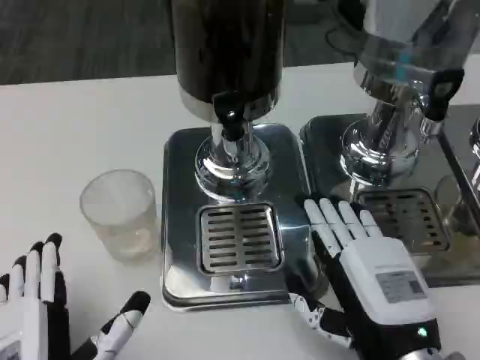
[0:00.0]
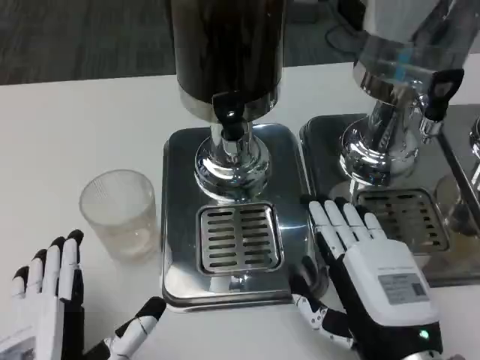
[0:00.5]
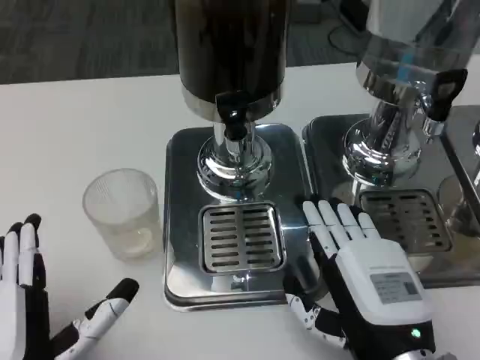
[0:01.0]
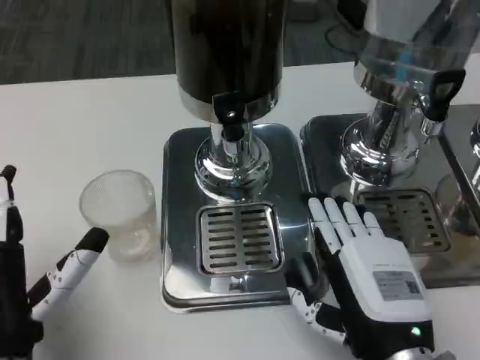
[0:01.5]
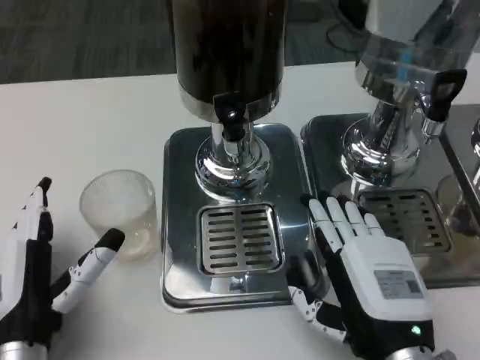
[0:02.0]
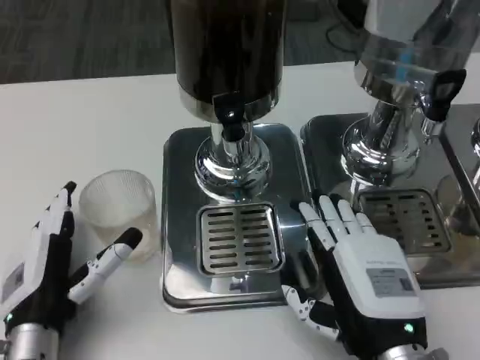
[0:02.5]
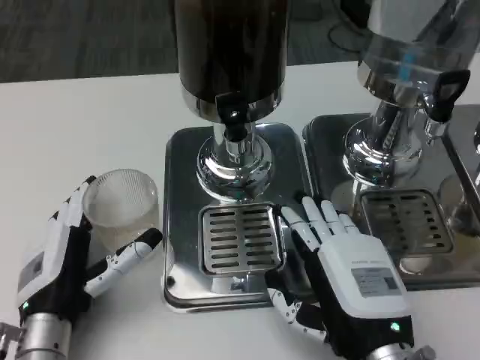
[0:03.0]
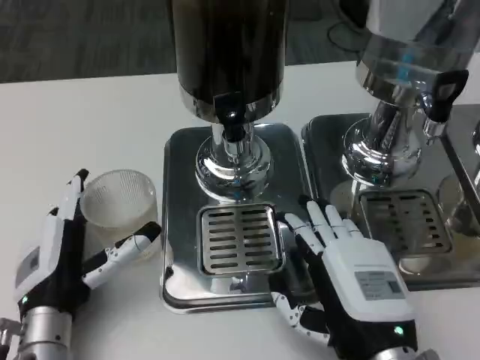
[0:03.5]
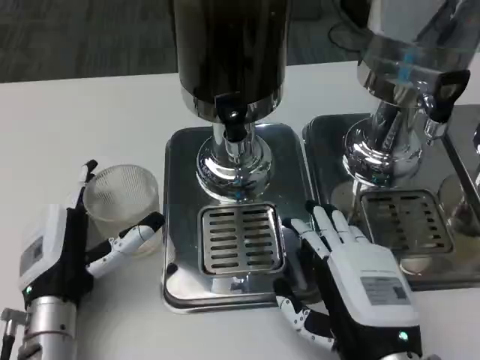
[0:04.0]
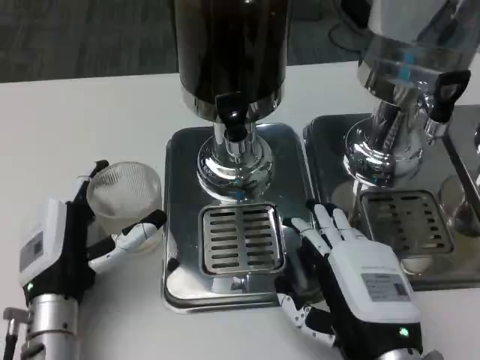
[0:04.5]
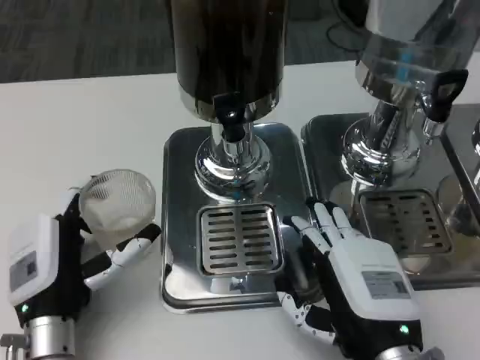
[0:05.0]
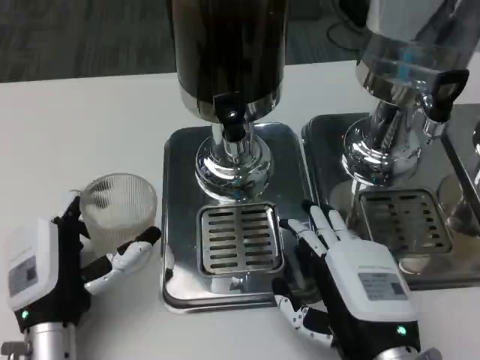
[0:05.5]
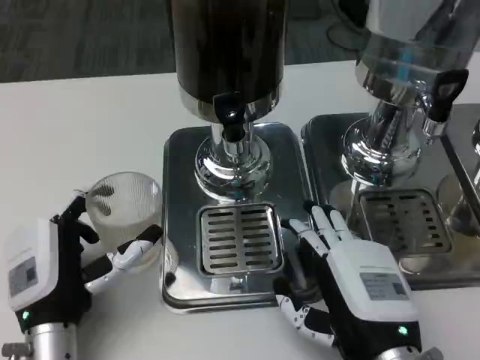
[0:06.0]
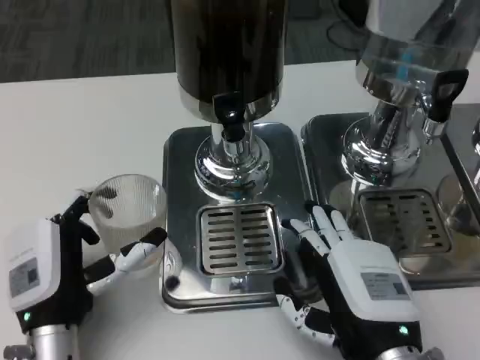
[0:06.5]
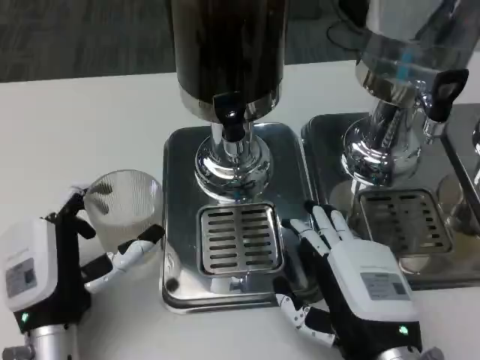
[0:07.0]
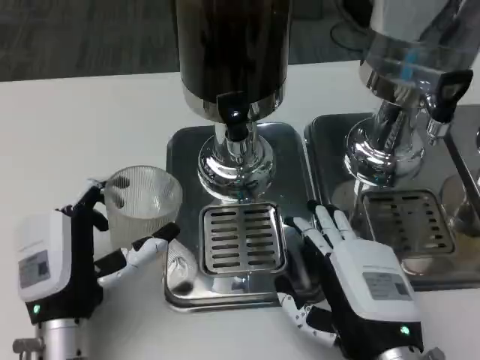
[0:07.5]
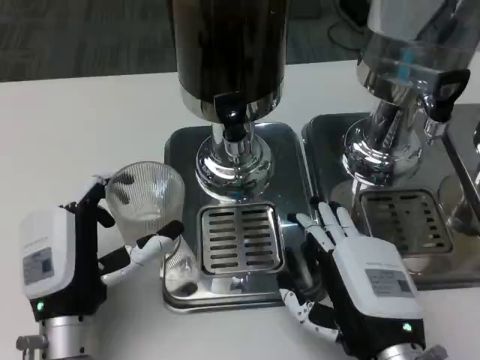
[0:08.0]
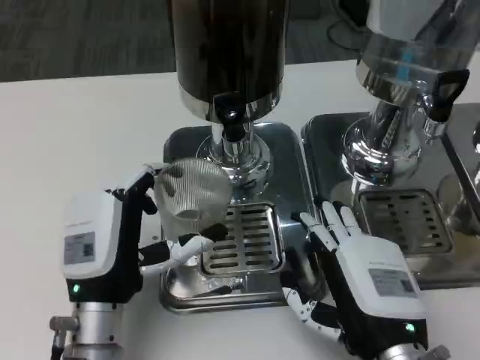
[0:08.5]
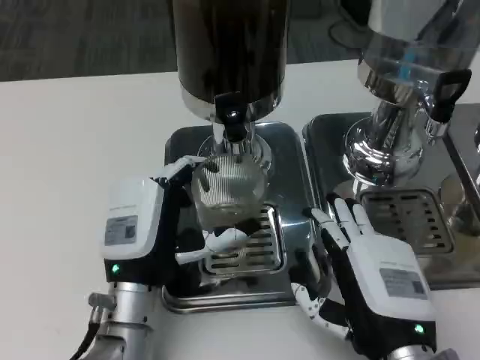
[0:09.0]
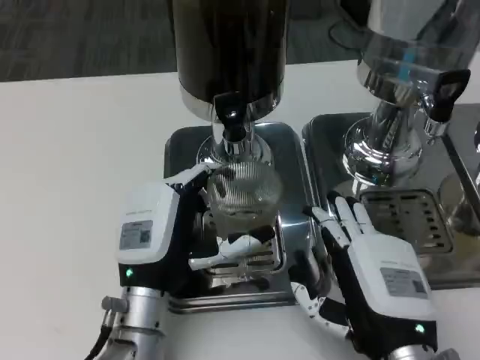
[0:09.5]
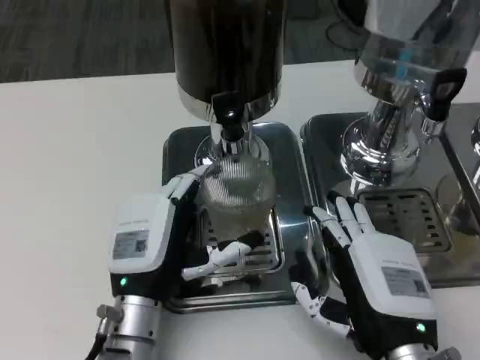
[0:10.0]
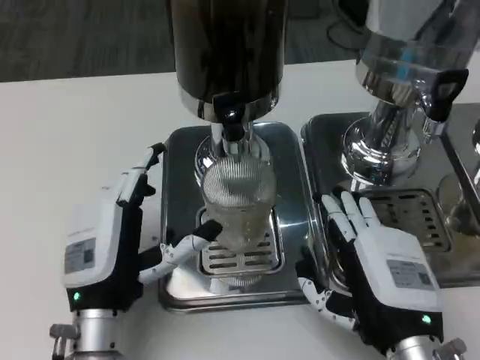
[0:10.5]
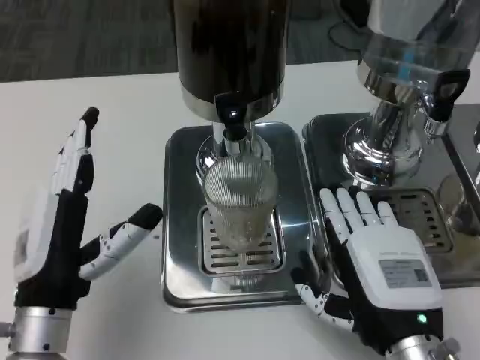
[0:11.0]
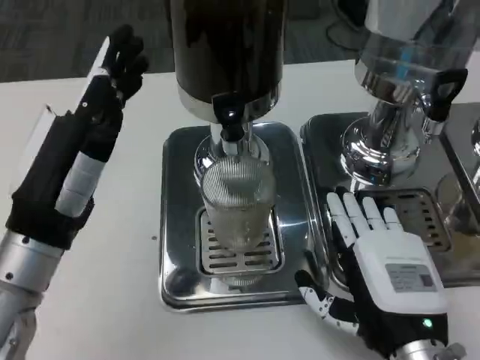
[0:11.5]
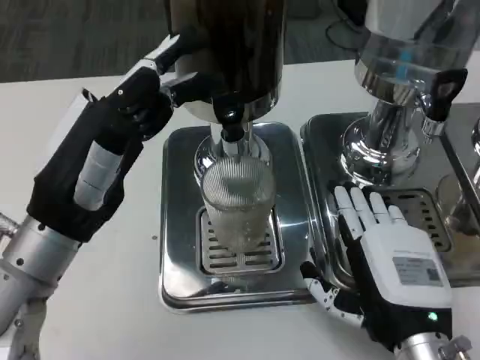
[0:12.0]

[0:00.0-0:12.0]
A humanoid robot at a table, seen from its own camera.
Task of the whole recording: Grasp the cup under the faucet to collect the drink, then remove the cup.
0:00.0 to 0:02.0: The left hand travels forward by roughly 10 cm.
0:02.0 to 0:04.0: The left hand changes place by approximately 5 cm.
0:04.0 to 0:06.0: The hands stay close to where they were, moving slightly.
0:06.0 to 0:08.0: The hands stay close to where they were, moving slightly.
0:08.0 to 0:10.0: The left hand goes approximately 5 cm to the right.
0:10.0 to 0:12.0: The left hand goes approximately 15 cm upward and to the left.

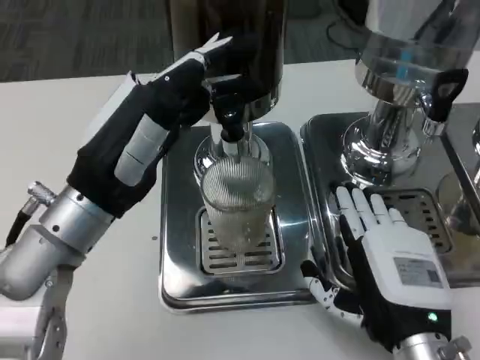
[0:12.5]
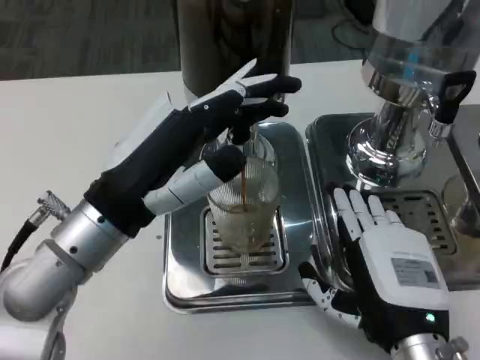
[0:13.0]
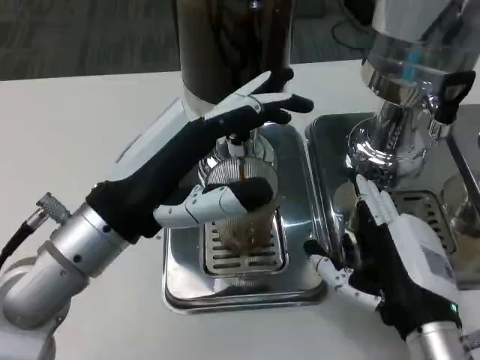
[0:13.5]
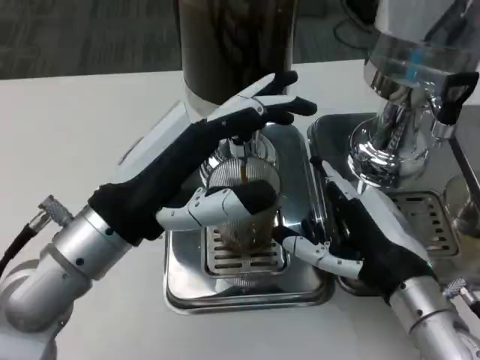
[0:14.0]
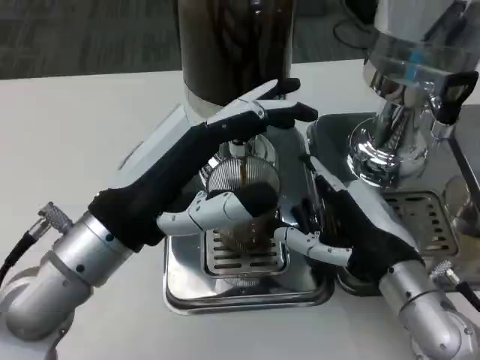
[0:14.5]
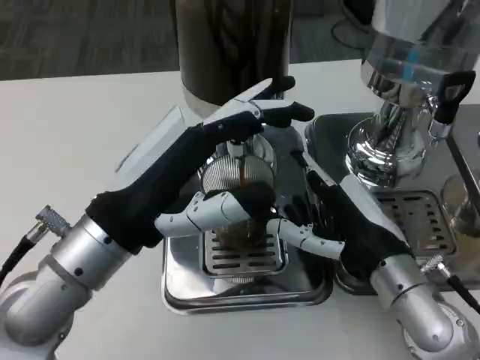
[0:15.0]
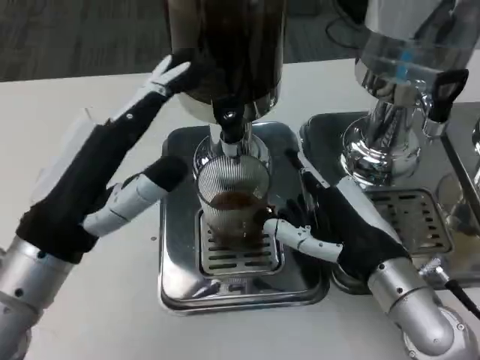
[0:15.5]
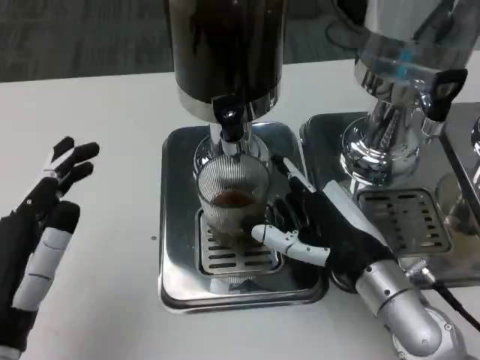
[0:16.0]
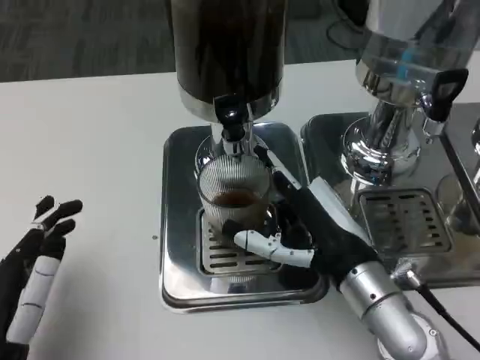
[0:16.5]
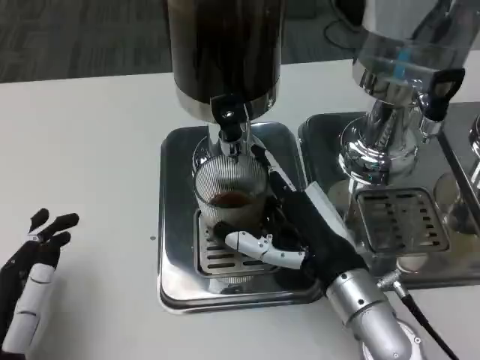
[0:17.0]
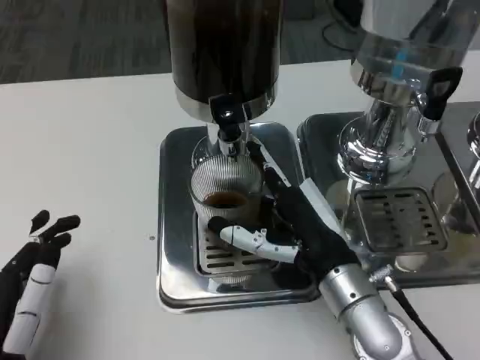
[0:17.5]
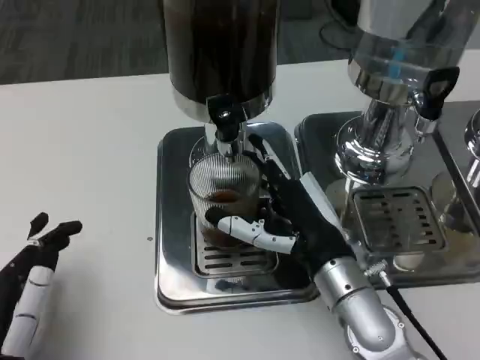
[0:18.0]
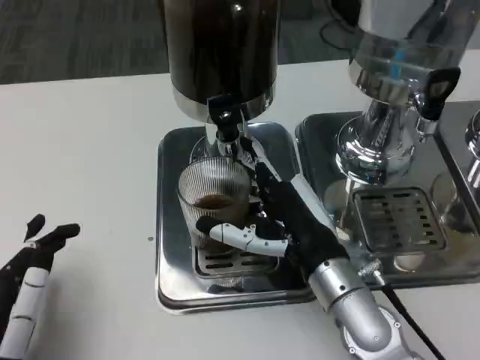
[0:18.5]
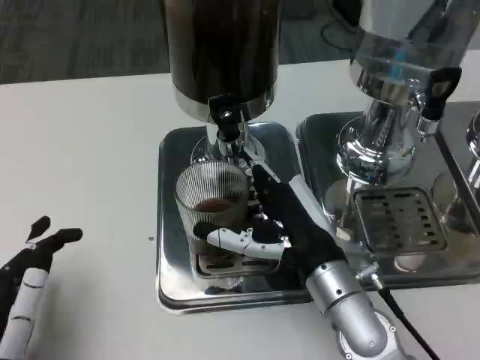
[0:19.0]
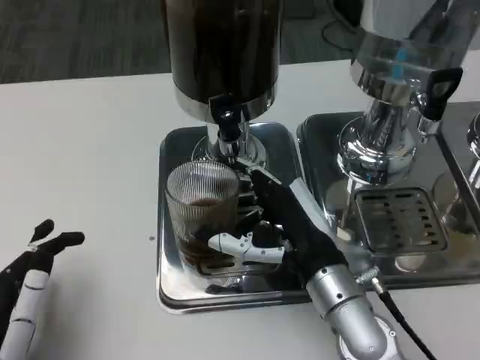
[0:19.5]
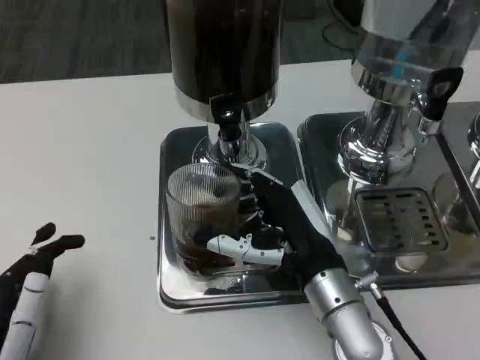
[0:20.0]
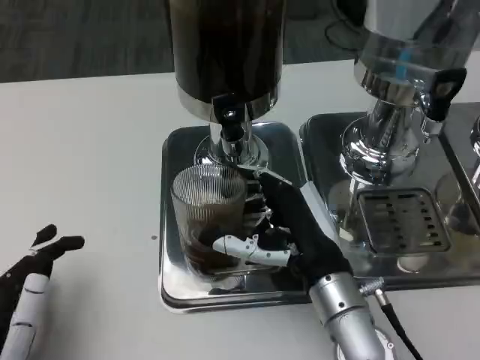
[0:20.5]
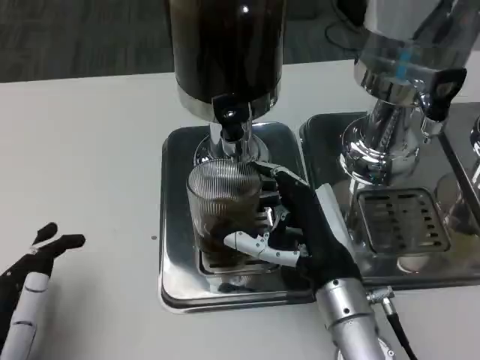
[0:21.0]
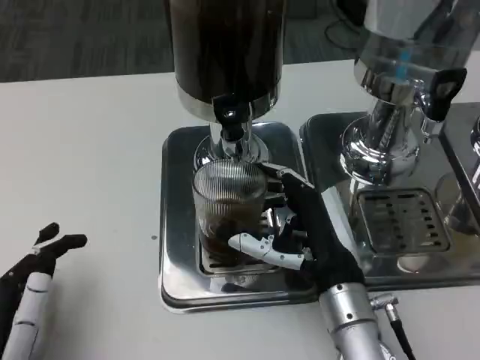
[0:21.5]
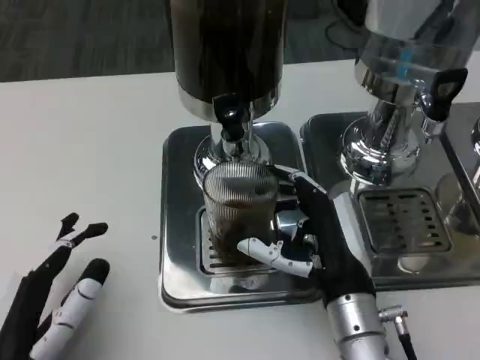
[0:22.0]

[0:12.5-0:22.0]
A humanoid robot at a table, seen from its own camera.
Task of the whole recording: Grasp the cup under the faucet to collect the drink, then remove the cup.
0:12.5 to 0:14.5: The right hand is displaced forward by roughly 5 cm.
0:14.5 to 0:16.5: The left hand is displaced downward, backward and to the left by approximately 15 cm.

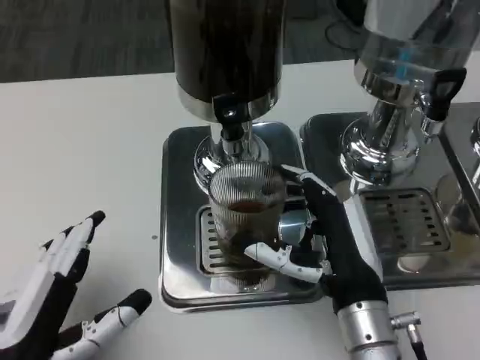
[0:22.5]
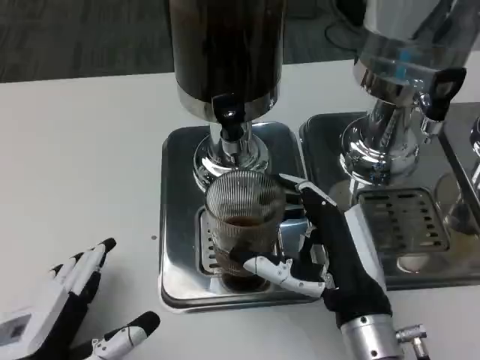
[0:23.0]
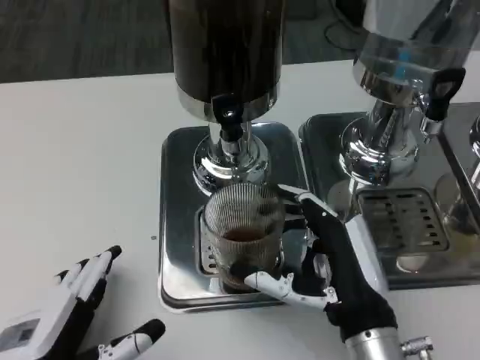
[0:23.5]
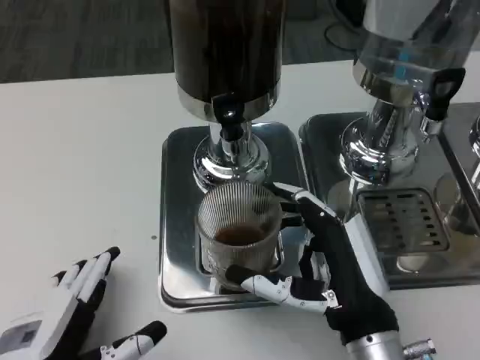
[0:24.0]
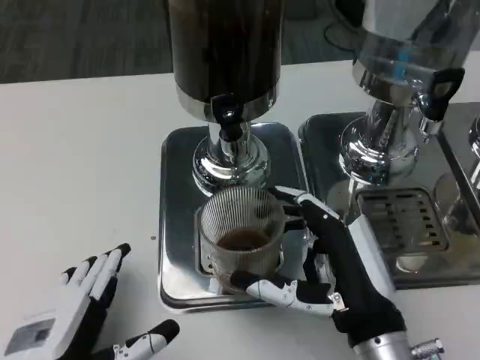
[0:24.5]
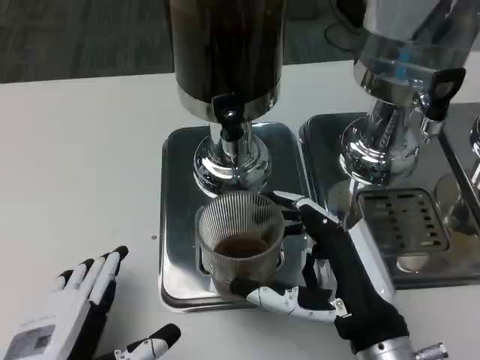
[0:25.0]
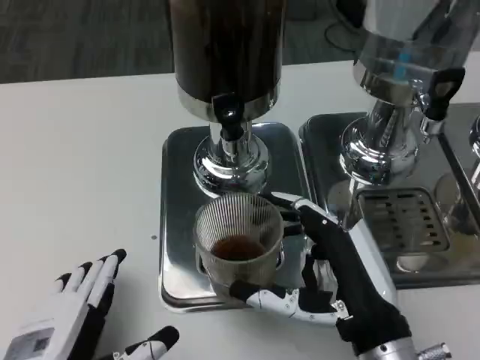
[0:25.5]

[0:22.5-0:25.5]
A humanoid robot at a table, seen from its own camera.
Task of the whole recording: Grasp the cup under the faucet to collect the drink, then remove the cup.
0:22.5 to 0:25.5: The hands make only small movements.
